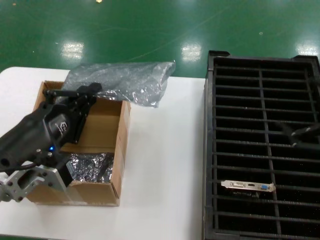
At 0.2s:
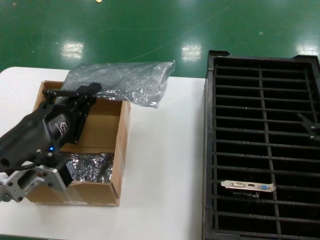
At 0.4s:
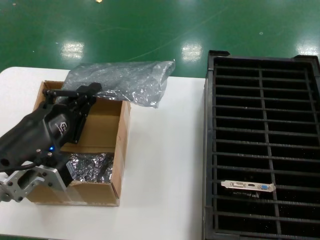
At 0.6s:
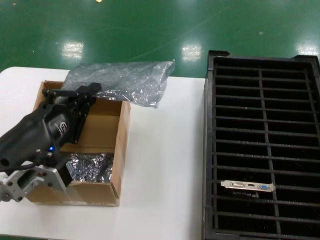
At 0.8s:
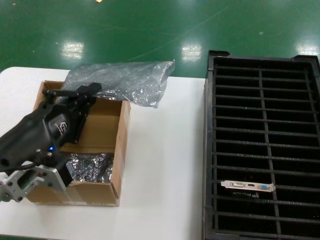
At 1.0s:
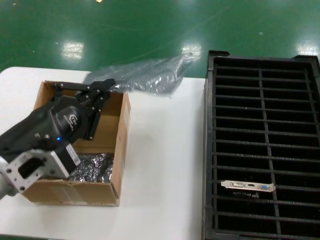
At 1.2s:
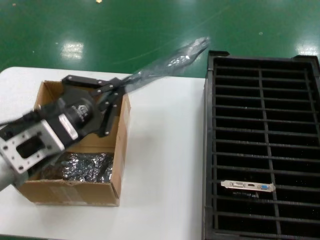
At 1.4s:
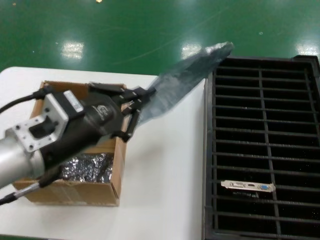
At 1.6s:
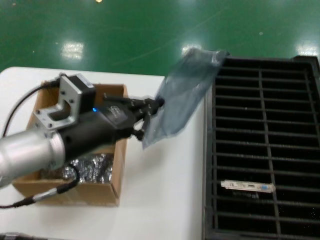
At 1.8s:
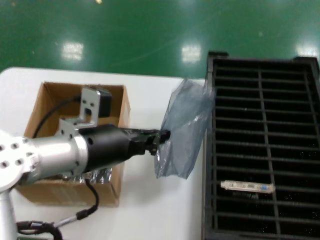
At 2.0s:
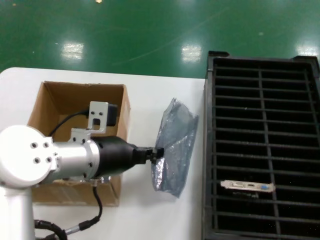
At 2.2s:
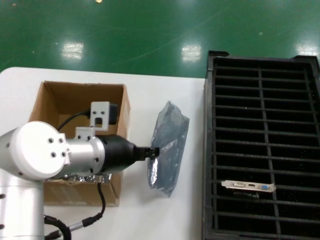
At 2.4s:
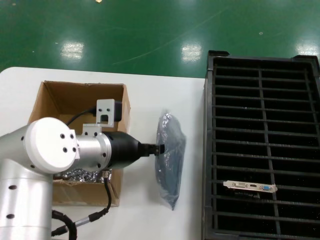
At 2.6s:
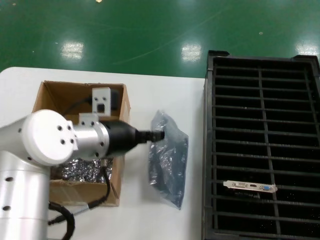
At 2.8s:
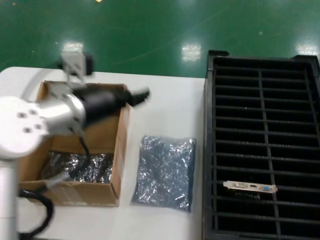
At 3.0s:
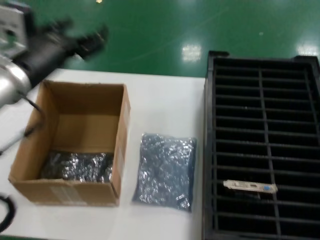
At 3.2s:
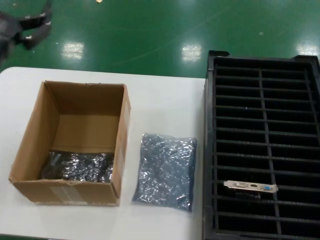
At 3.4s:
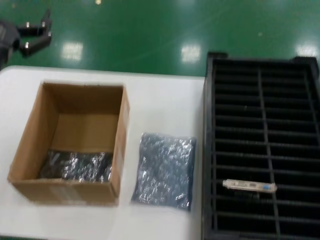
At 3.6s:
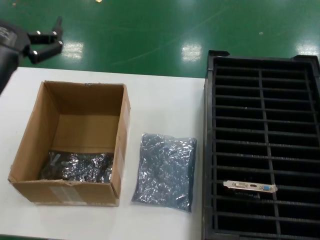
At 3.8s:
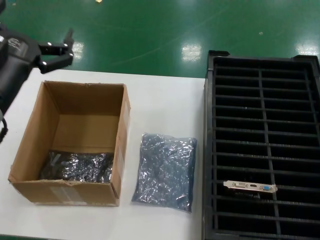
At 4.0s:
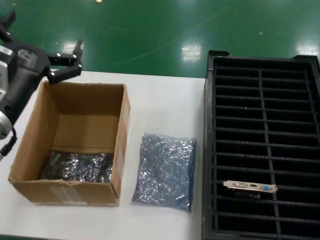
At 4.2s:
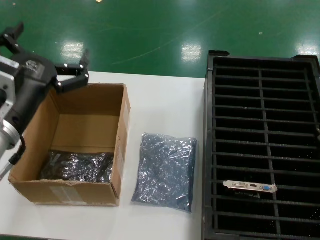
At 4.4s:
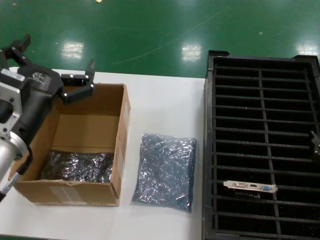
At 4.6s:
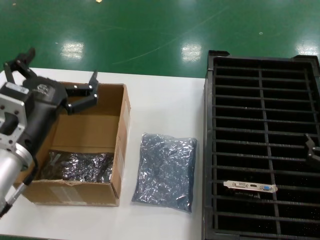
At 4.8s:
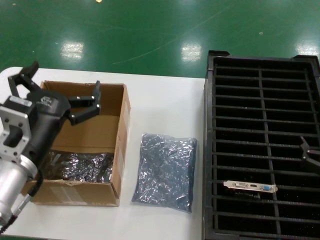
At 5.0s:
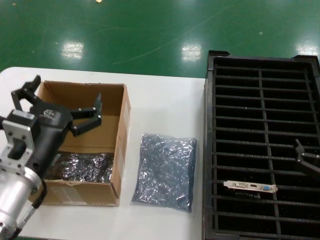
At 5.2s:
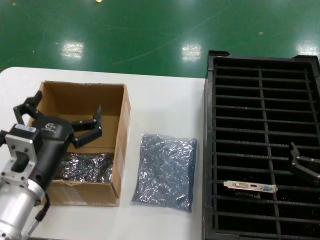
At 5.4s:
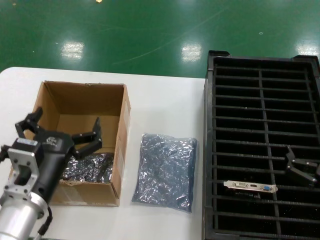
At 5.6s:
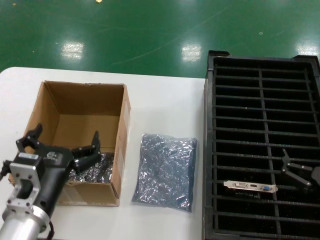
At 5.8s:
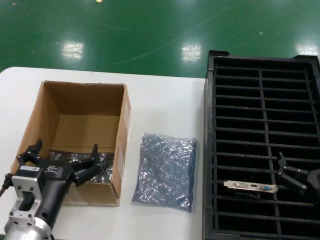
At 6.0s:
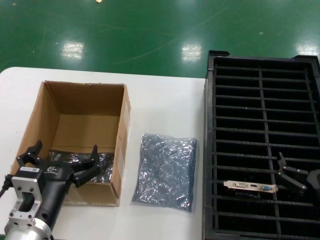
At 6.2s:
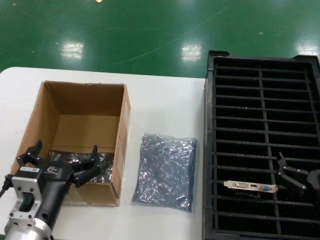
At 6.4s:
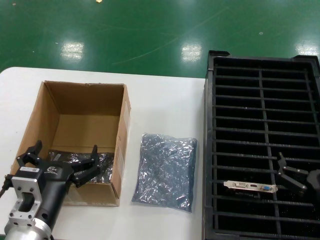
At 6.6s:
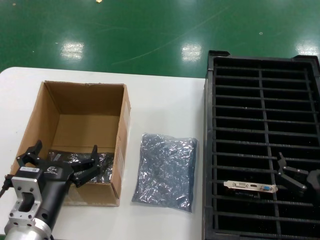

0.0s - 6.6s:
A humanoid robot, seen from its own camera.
Task of the whole recording: take out graphics card from box remove packaging put into black container.
Step, 0.0s - 3.8s: Place the down the bag.
0.0s - 1.6s: The left hand is displaced upward and forward by roughly 5 cm; the right hand travels to the right and downward by about 15 cm.
1.6s - 3.2s: The left hand shifts approximately 10 cm upward and to the left.
3.2s - 5.0s: The left hand shifts about 15 cm downward. Meanwhile the right hand moves to the left and downward, roughly 10 cm.
5.0s - 6.6s: The left hand is displaced downward by approximately 10 cm, while the right hand moves roughly 5 cm.
